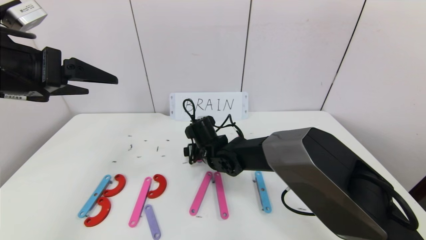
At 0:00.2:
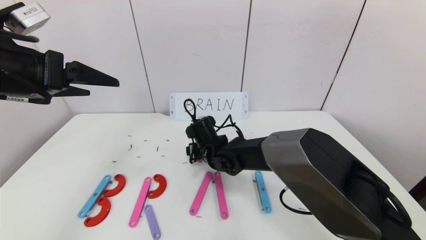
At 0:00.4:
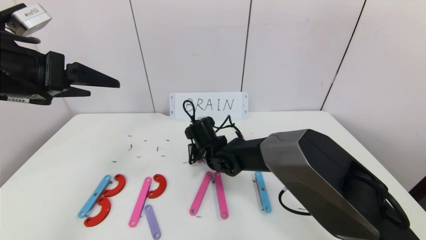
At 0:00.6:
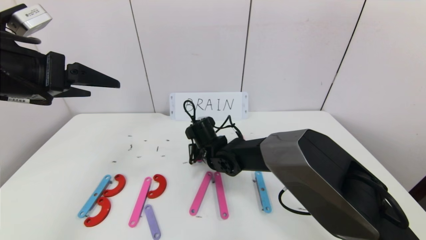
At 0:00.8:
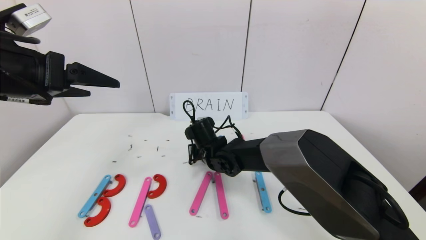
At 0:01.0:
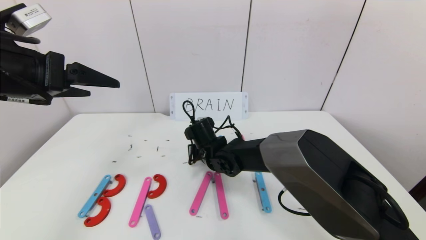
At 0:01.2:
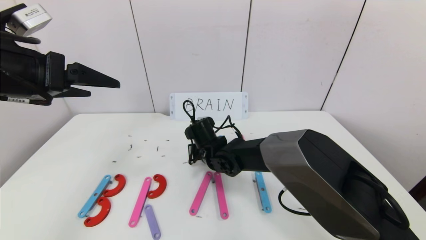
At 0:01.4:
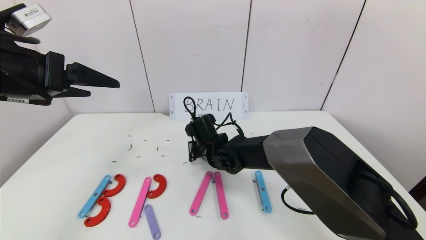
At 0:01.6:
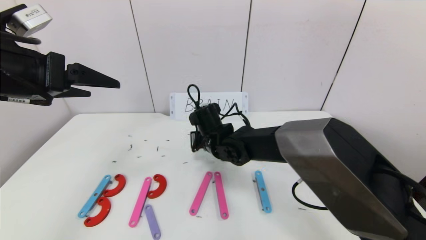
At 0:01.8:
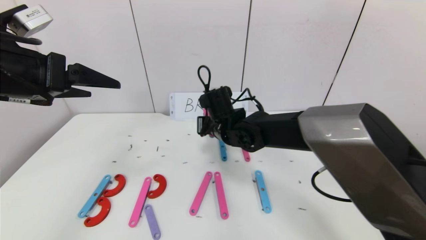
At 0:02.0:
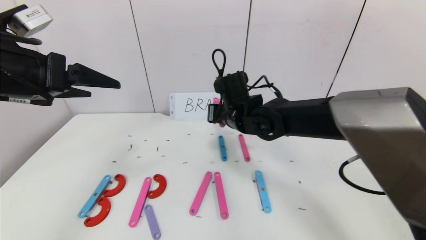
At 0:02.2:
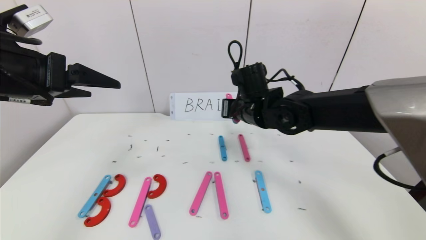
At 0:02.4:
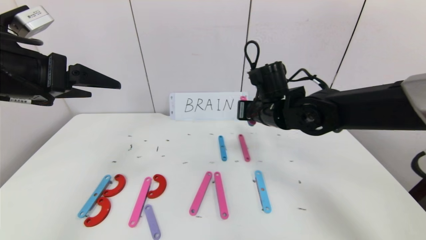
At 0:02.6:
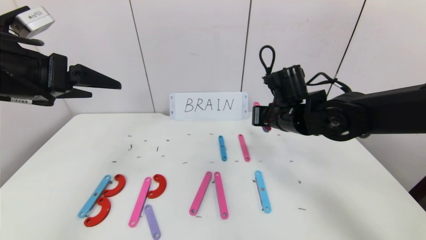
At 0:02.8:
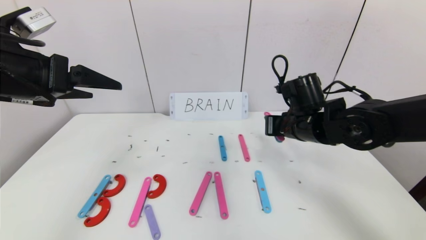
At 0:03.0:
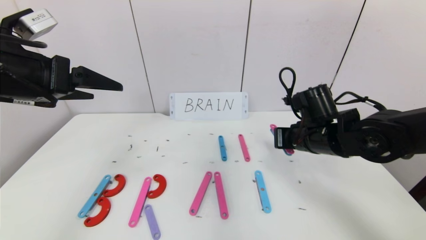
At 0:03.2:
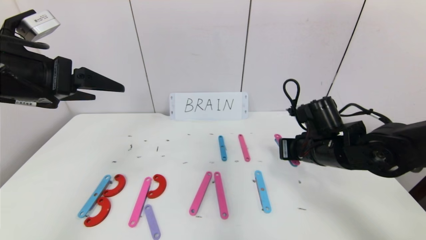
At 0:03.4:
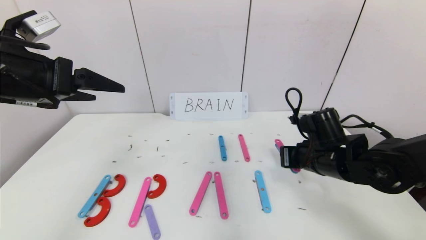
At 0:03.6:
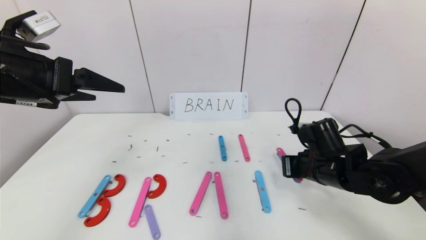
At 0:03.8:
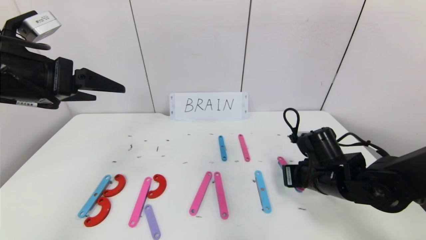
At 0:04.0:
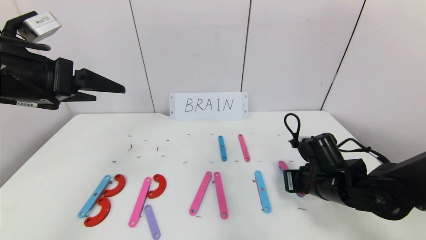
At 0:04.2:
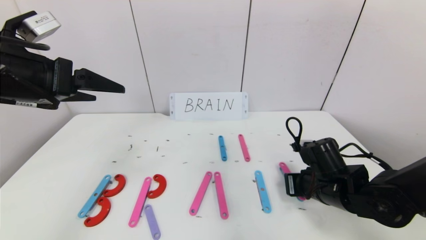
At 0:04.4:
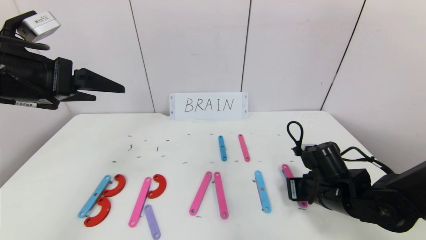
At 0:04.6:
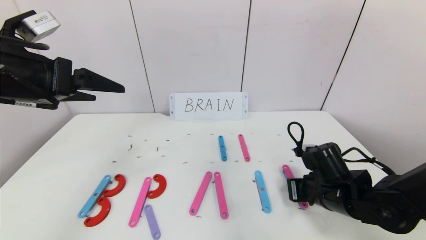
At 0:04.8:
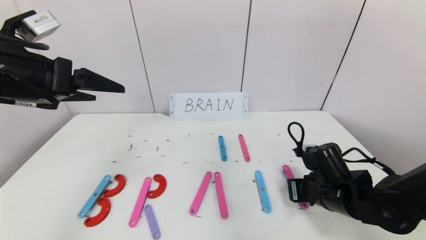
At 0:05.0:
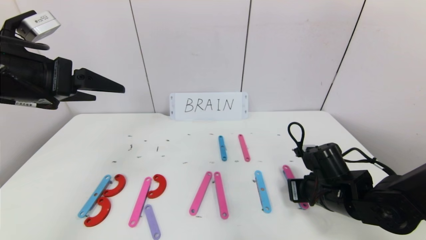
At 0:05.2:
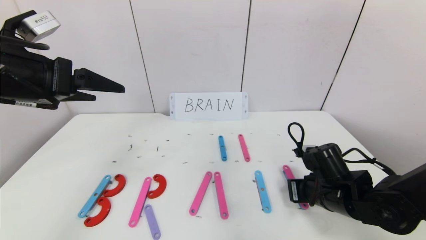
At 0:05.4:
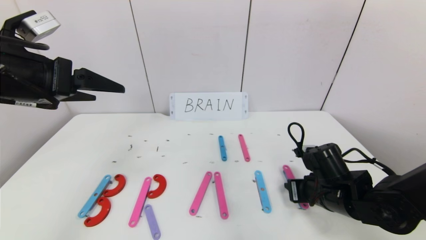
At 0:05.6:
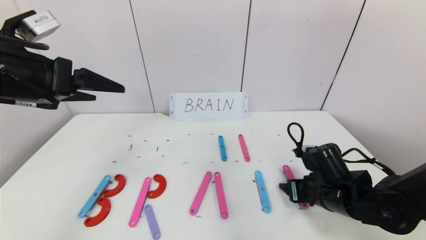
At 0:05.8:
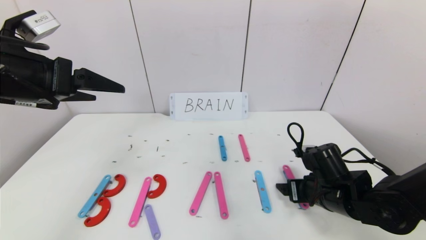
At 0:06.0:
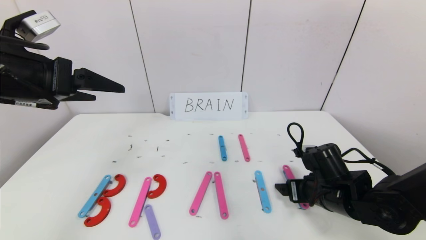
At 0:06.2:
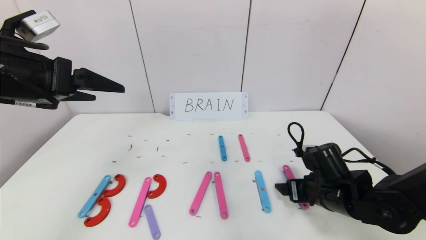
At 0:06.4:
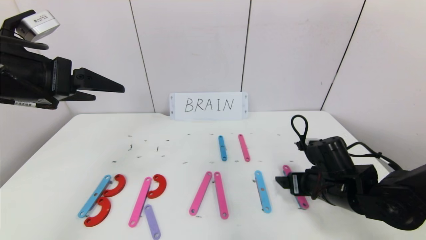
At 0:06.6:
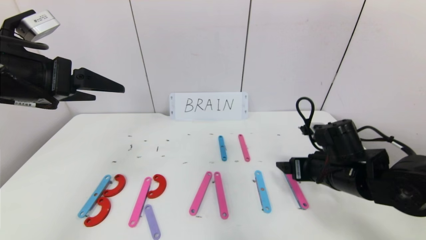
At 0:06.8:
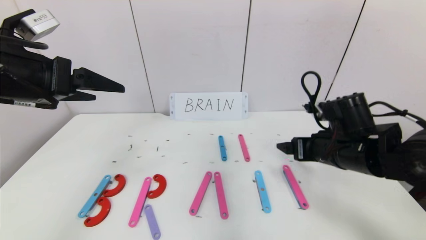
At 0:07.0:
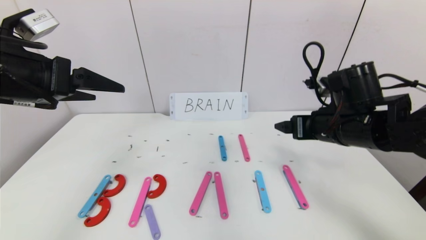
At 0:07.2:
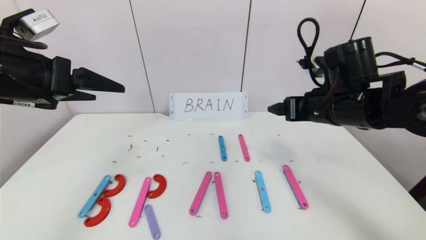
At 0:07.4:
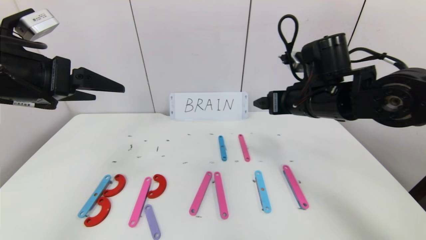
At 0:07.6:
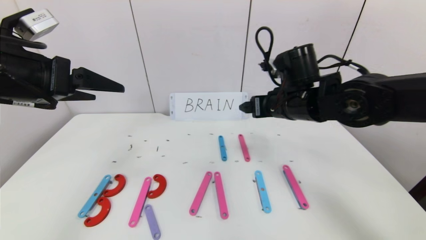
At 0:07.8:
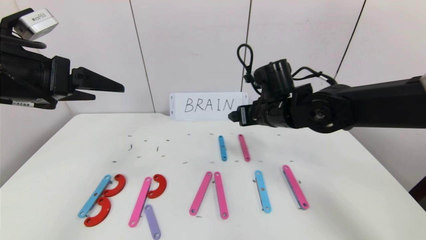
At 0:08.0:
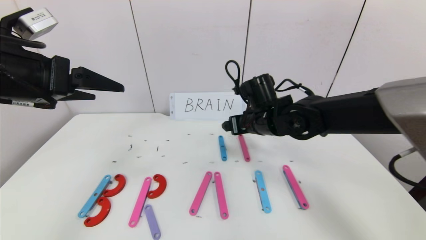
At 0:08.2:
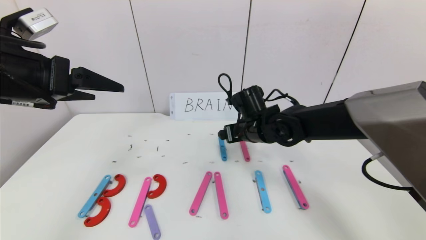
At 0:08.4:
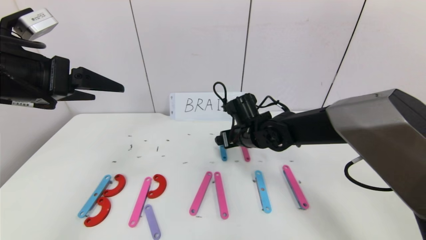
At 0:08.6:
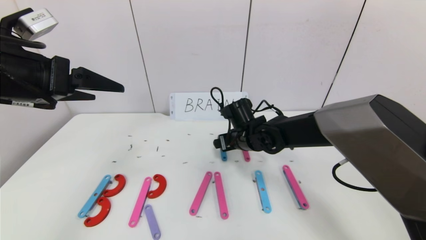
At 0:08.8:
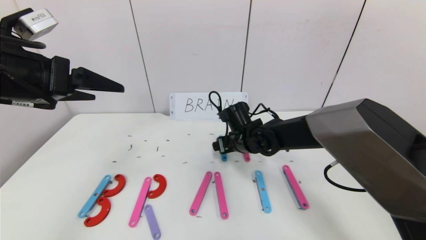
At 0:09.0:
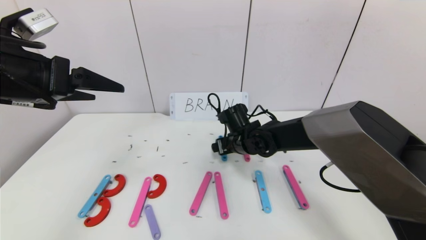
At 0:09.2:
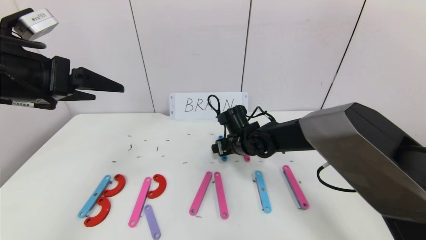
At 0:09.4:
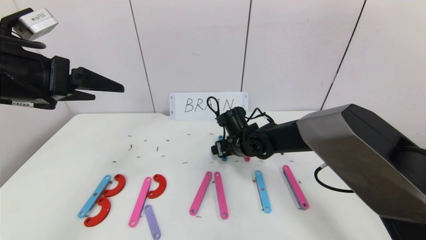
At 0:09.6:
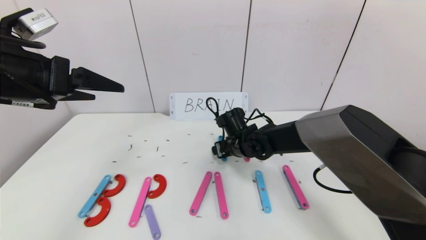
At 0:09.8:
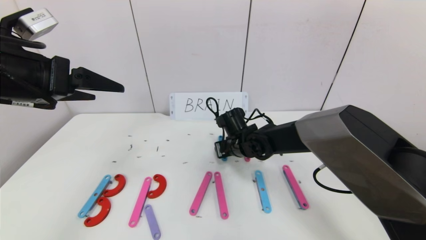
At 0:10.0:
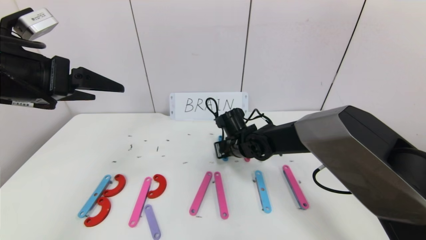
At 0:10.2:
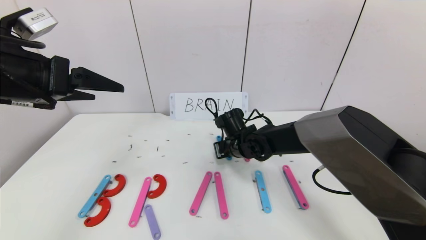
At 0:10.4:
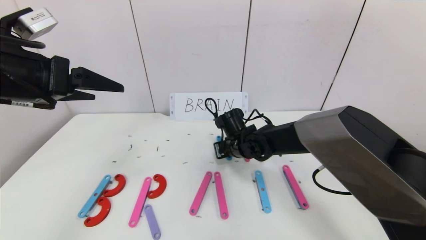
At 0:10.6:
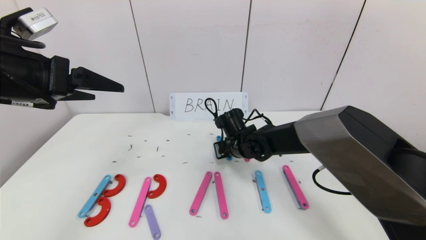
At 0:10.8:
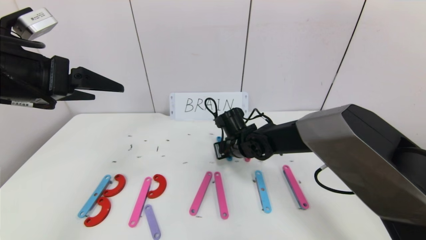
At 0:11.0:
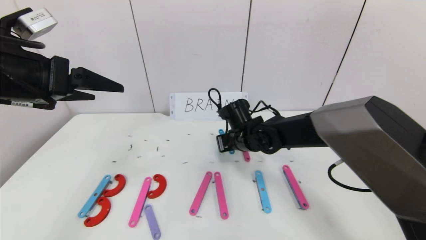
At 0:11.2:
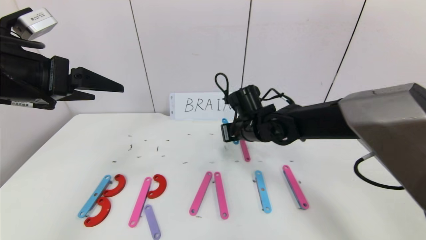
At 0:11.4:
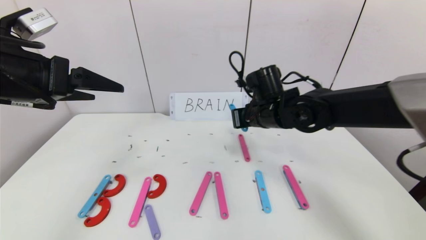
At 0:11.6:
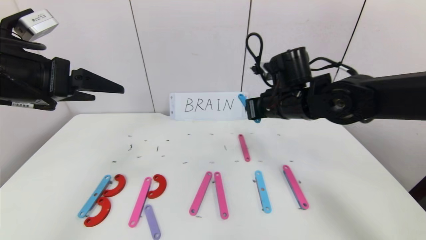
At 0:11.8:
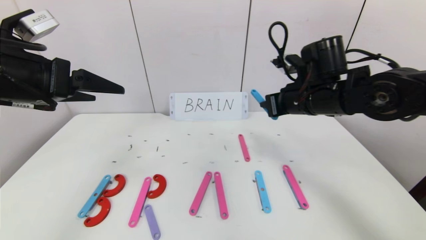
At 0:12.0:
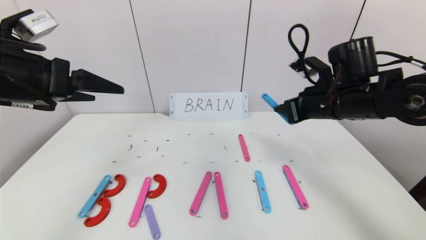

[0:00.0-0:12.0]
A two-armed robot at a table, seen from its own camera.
Task of the whole recording: rearrange the word baai as brain.
0:00.0 to 0:01.6: The right gripper closes its fingers.
0:01.6 to 0:03.0: The right gripper shifts about 20 cm to the right.
0:03.0 to 0:04.4: The right gripper goes some 10 cm downward and backward.
0:04.4 to 0:06.0: The right gripper opens its fingers.
0:06.0 to 0:07.6: The right gripper heads upward, forward and to the left, covering approximately 20 cm.
0:07.6 to 0:09.0: The right gripper travels downward and to the left by roughly 15 cm.
0:09.0 to 0:10.4: The right gripper closes its fingers.
0:10.4 to 0:12.0: The right gripper heads to the right, upward and backward, covering some 25 cm.

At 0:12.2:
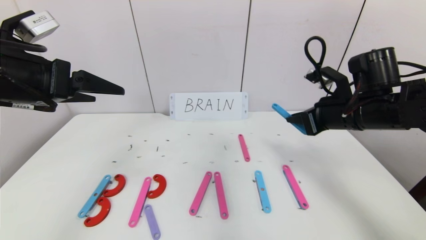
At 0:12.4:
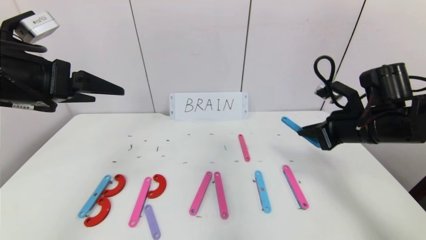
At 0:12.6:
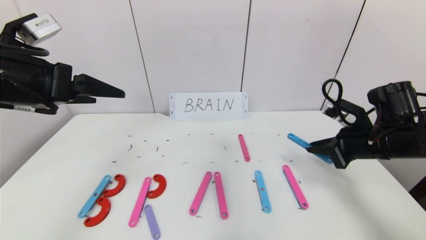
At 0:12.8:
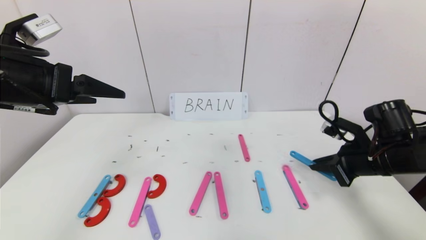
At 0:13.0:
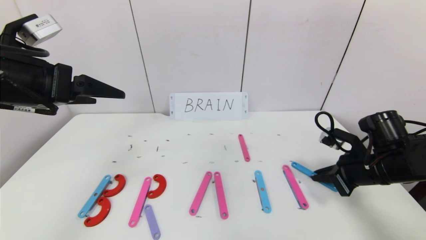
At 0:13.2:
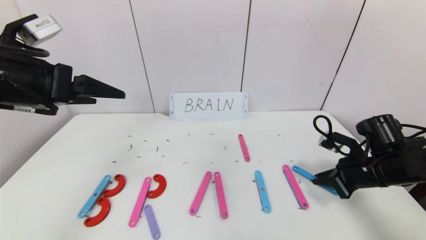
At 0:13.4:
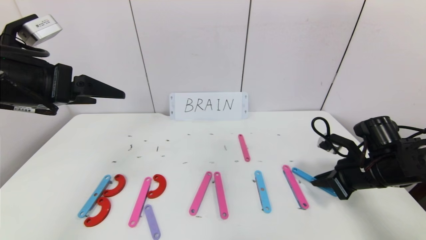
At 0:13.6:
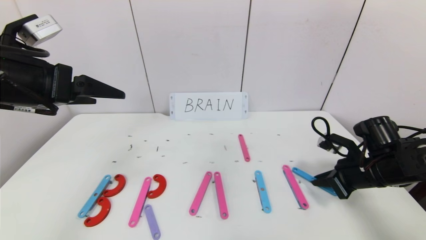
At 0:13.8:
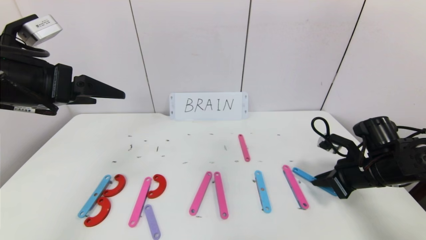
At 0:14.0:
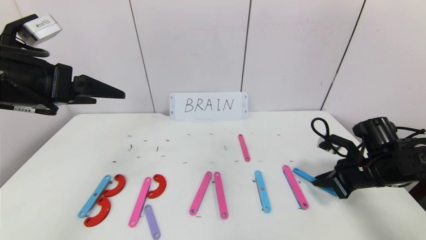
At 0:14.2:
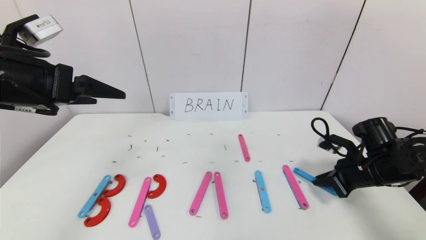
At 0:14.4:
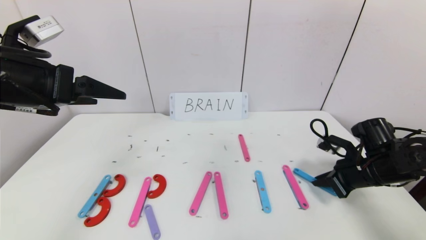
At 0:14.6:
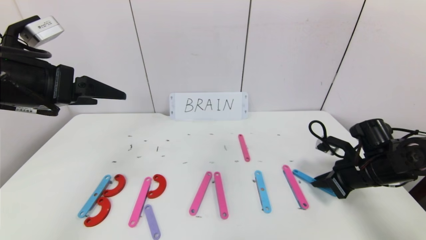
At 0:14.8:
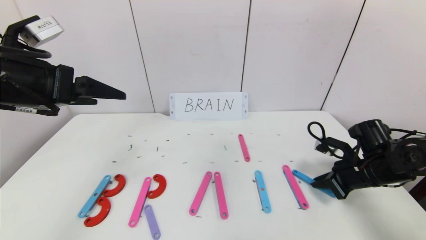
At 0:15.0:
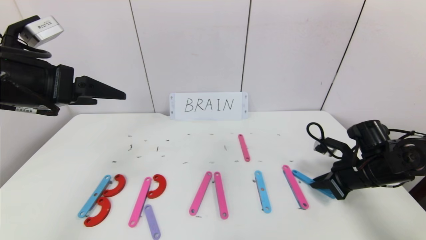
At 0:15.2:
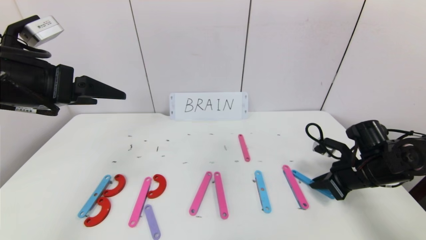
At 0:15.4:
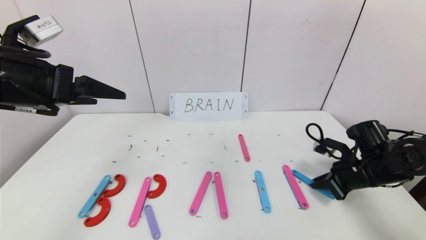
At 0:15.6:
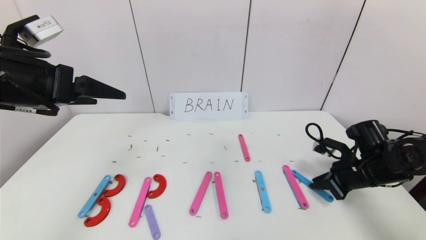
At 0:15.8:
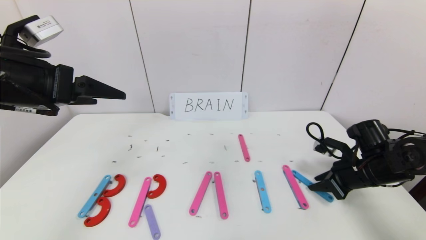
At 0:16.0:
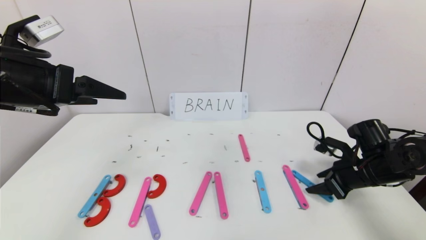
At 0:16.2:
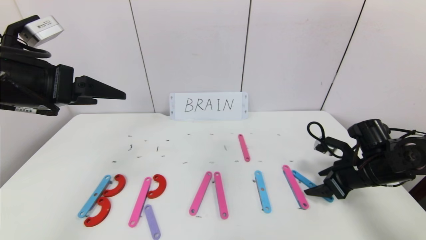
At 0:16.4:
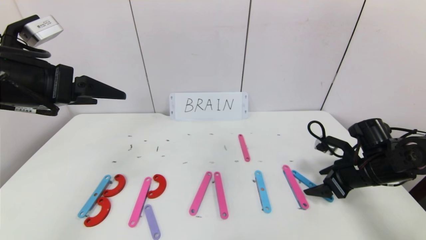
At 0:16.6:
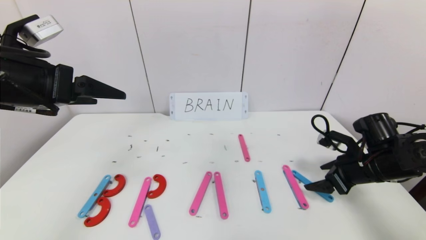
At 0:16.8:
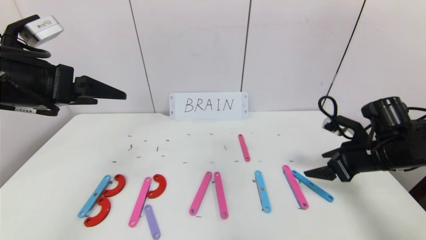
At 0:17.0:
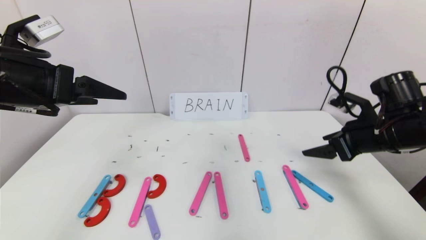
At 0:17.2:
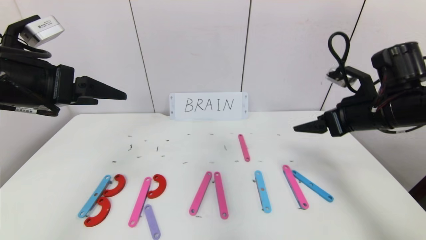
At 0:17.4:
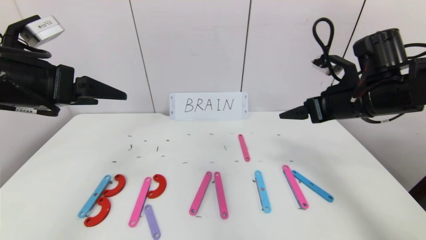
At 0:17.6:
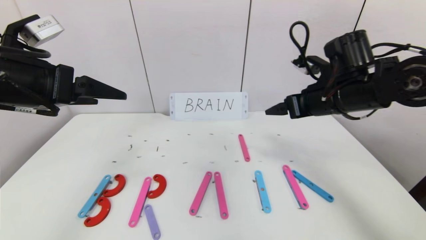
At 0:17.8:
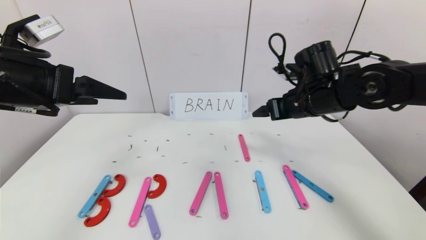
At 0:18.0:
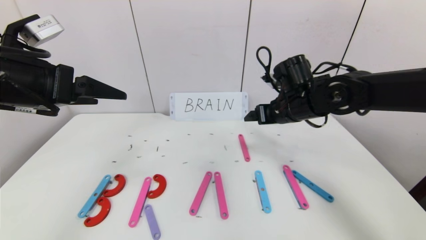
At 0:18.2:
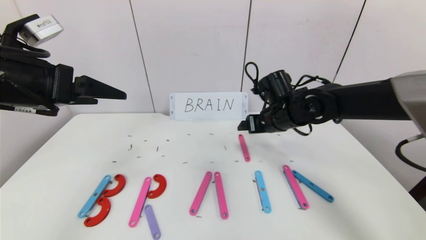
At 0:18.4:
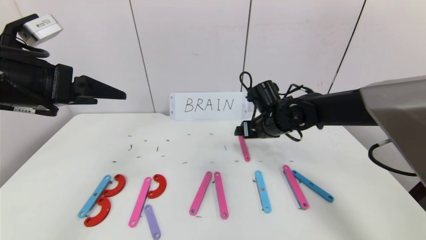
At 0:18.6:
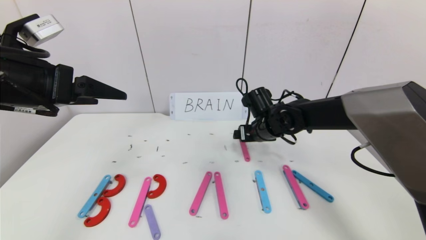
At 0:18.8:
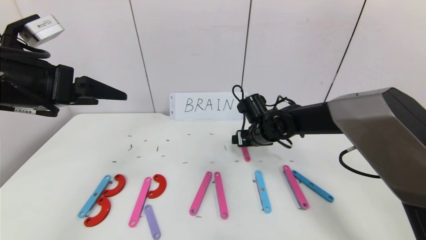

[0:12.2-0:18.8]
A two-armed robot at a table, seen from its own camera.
Task of the whole recording: rearrange the word baai as brain.
0:12.2 to 0:13.8: The right gripper moves downward and to the right, about 15 cm.
0:13.8 to 0:15.4: There are only small adjustments of the grippers.
0:15.4 to 0:17.2: The right gripper travels upward by about 15 cm, and opens its fingers.
0:17.2 to 0:18.8: The right gripper moves to the left, downward and forward, about 25 cm.
